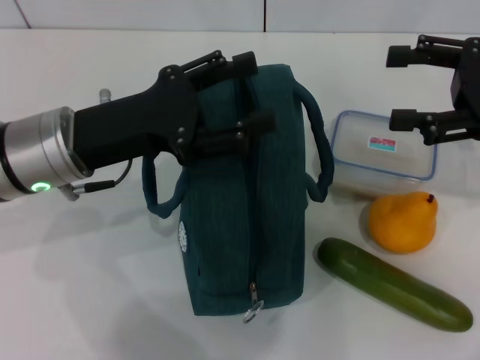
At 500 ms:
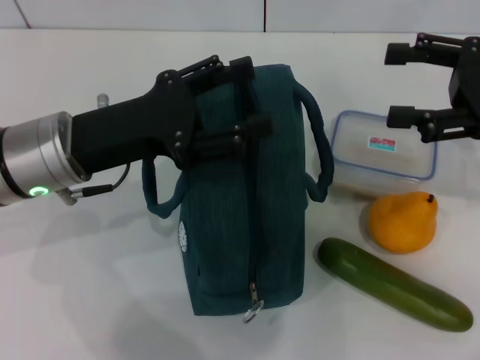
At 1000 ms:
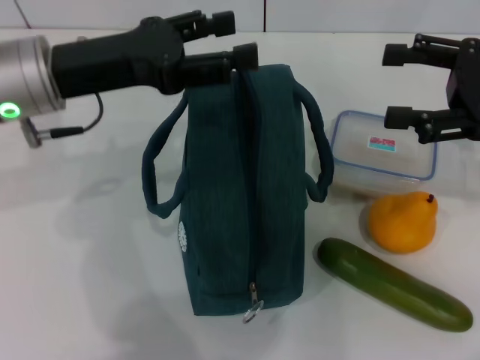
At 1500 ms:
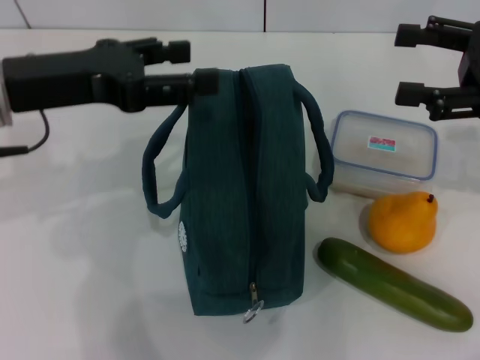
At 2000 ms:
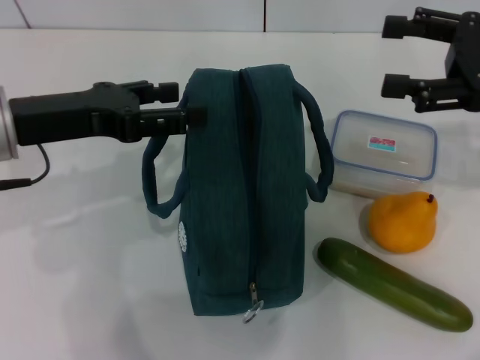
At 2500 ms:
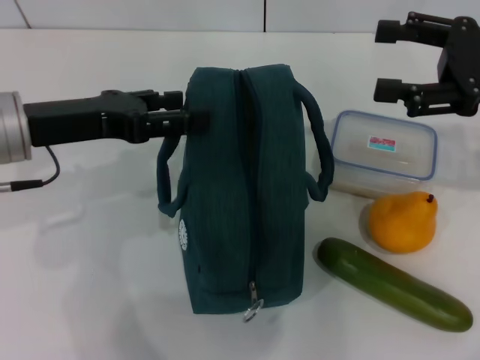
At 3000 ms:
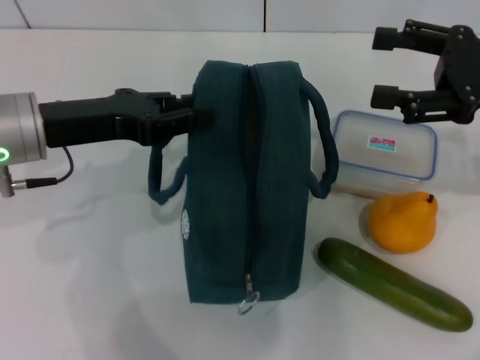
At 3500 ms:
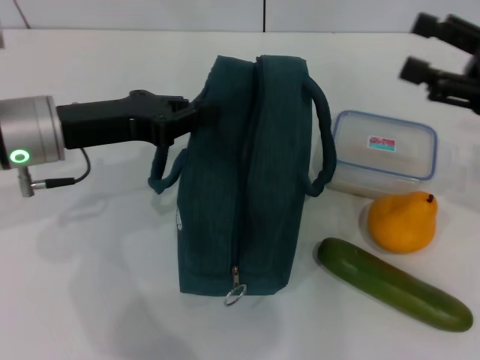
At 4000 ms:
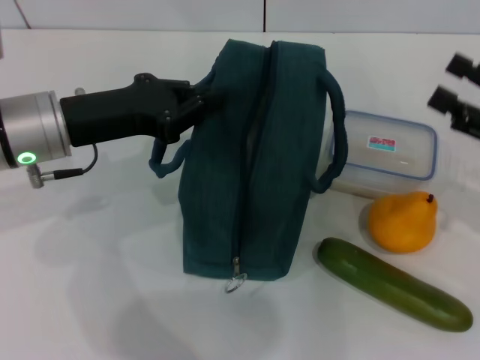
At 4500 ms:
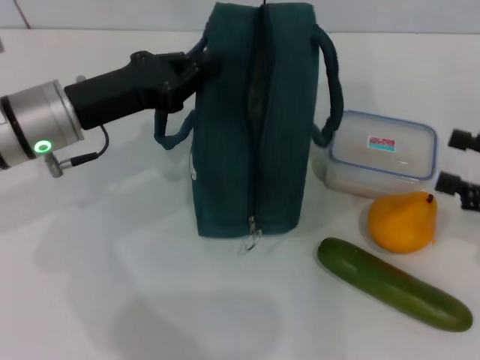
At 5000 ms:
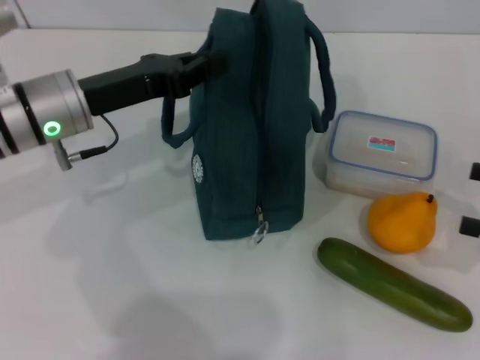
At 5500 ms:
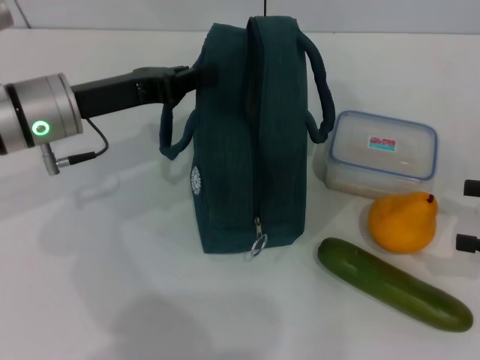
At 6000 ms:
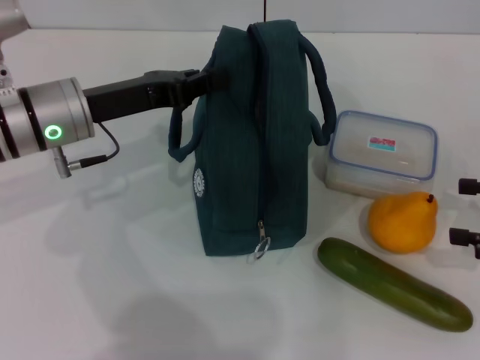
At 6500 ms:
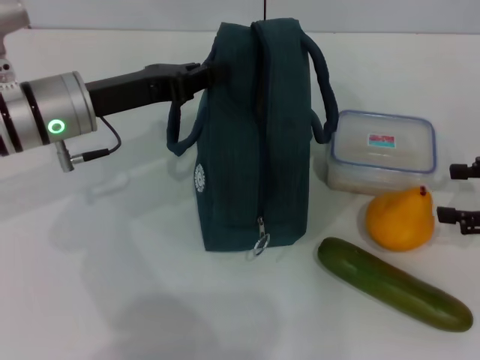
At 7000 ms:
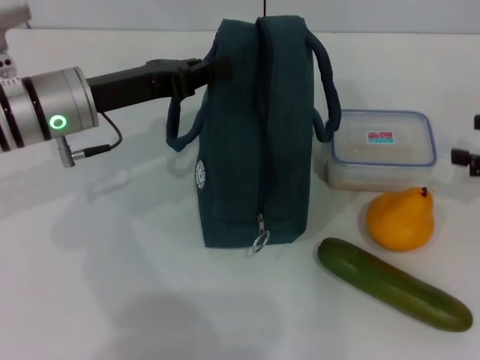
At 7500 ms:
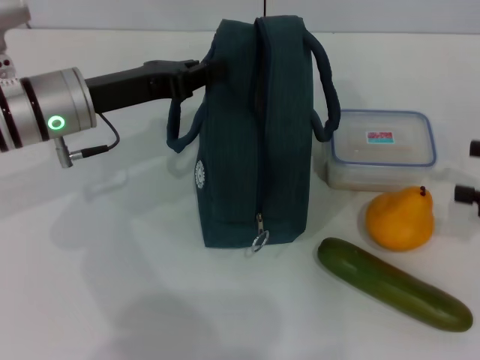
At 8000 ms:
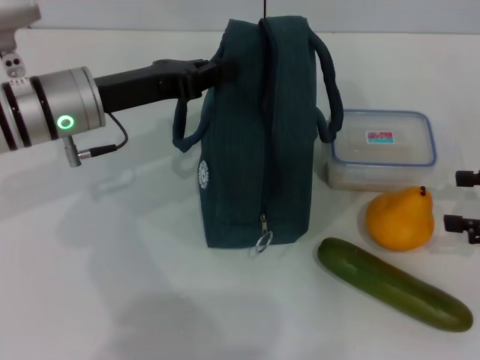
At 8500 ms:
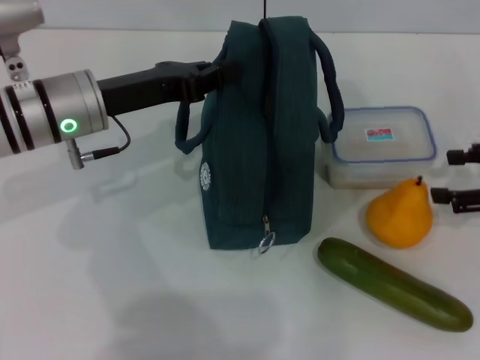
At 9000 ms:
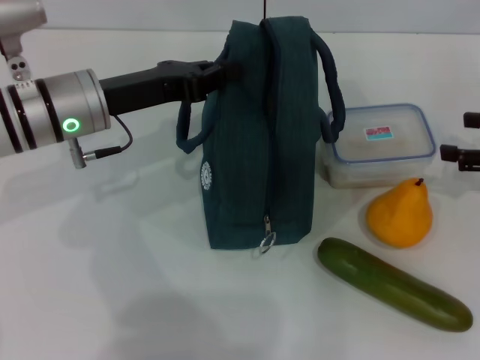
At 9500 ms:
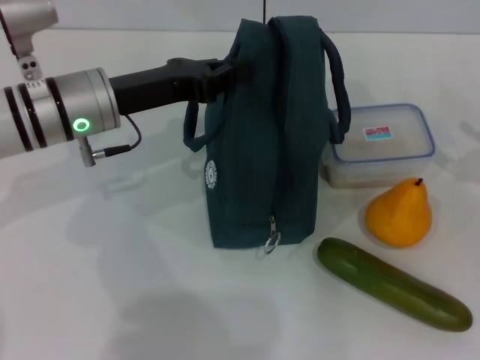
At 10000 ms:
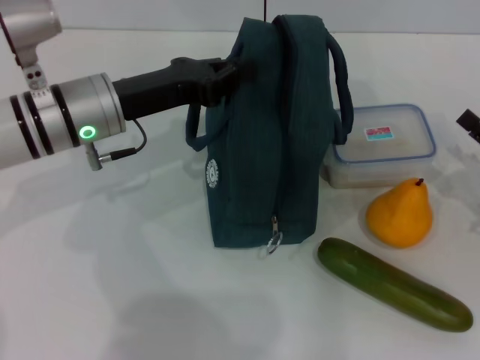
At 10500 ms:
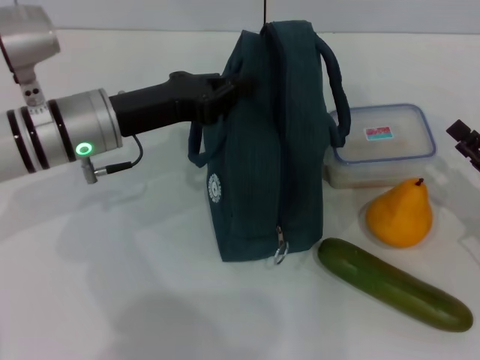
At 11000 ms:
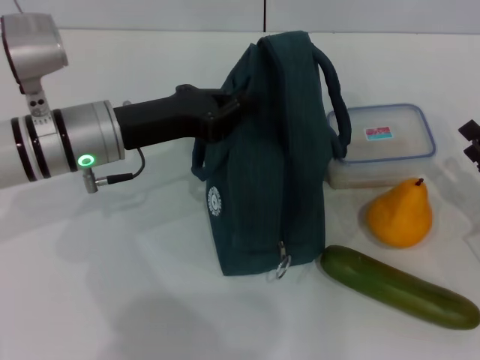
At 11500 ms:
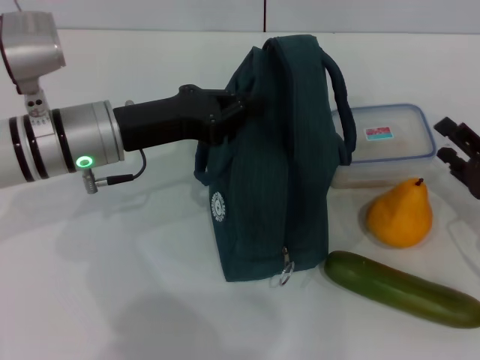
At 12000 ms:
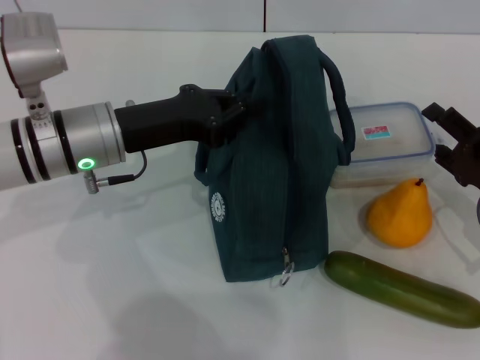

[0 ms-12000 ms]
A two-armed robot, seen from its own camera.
Step, 0 ms to 4000 ms: Hold the lunch bag with your left hand.
0 ms to 2000 ms: The left gripper shifts by about 5 cm.
2000 ms to 4000 ms: The right gripper goes approximately 10 cm downward and backward. The left gripper ends up roughly 5 cm from where it was, and closes up.
4000 ms to 6000 ms: The right gripper is displaced to the right by about 5 cm.
6000 ms to 8000 ms: The grippers move only a little.
8000 ms to 10000 ms: The right gripper shifts approximately 5 cm downward.

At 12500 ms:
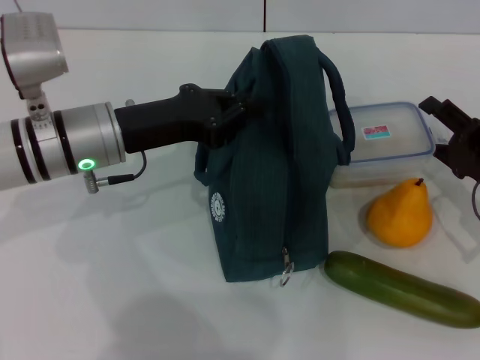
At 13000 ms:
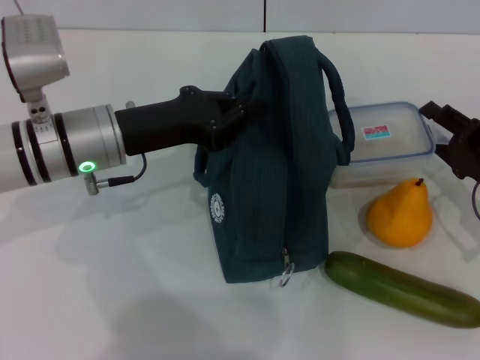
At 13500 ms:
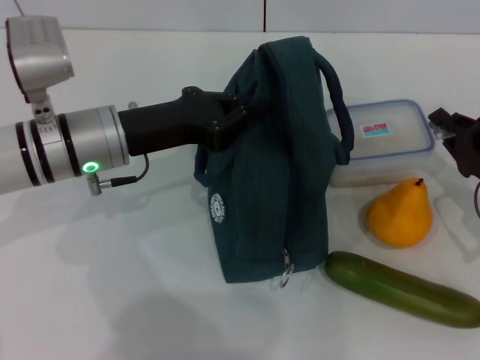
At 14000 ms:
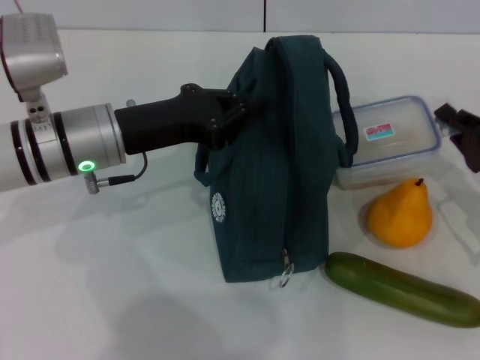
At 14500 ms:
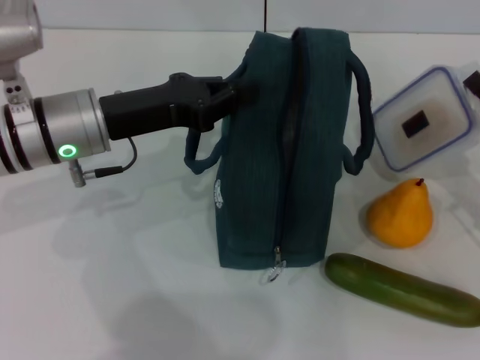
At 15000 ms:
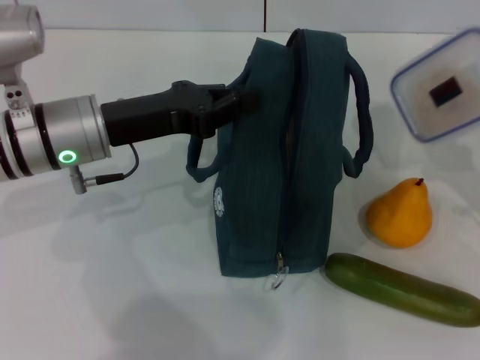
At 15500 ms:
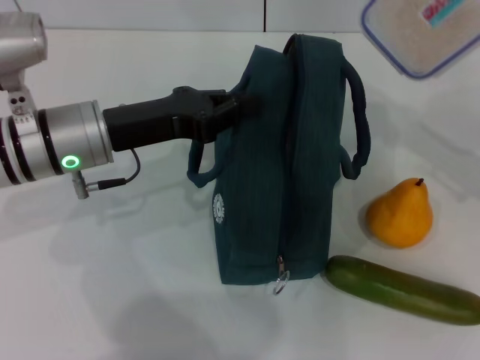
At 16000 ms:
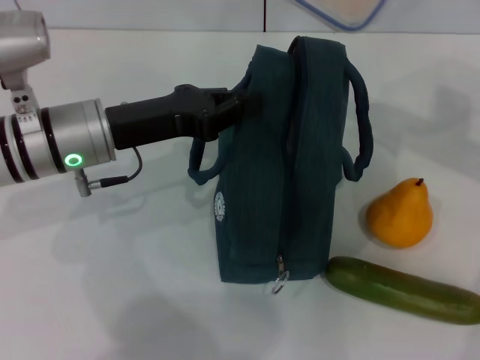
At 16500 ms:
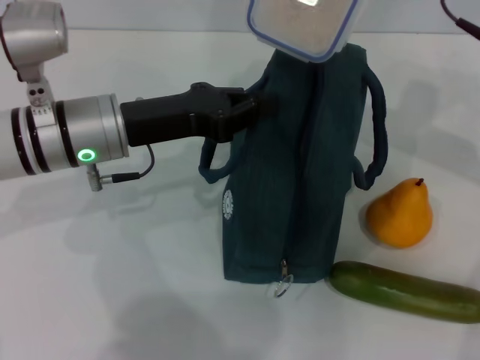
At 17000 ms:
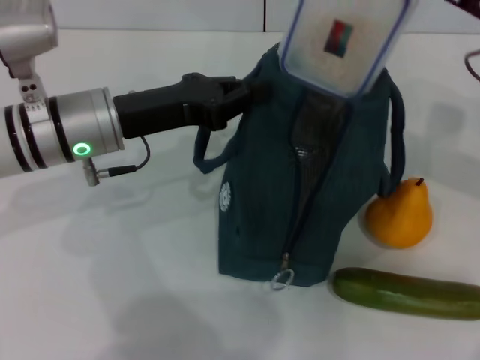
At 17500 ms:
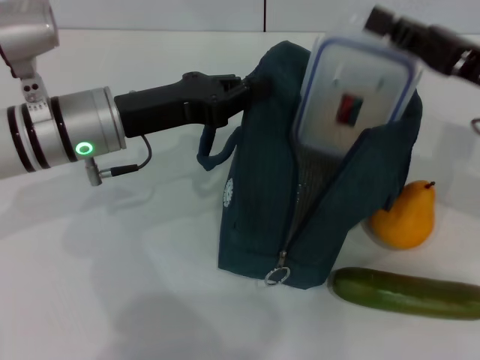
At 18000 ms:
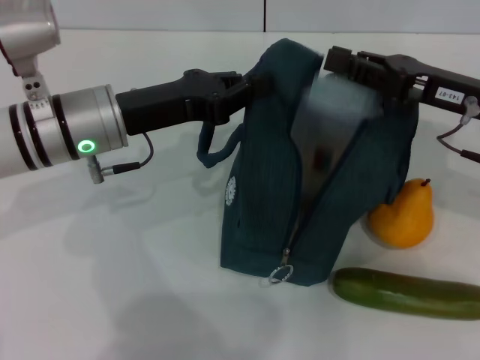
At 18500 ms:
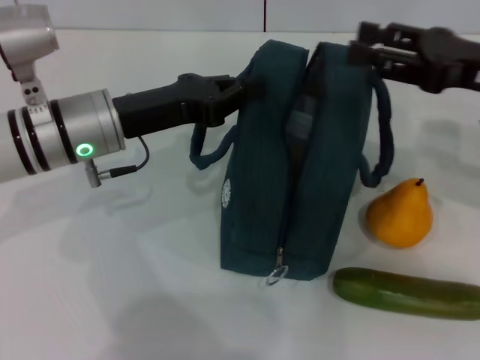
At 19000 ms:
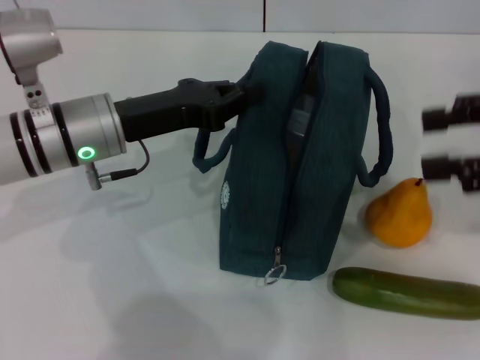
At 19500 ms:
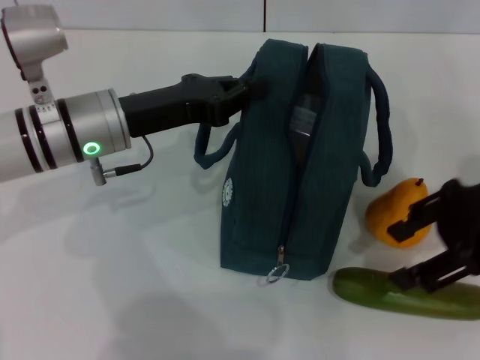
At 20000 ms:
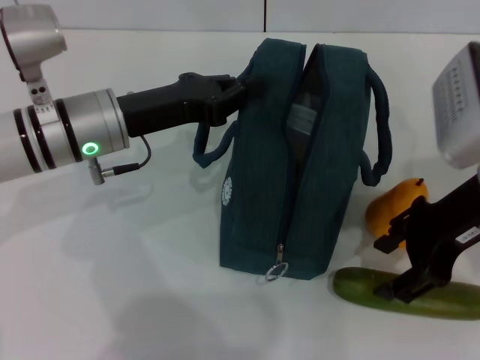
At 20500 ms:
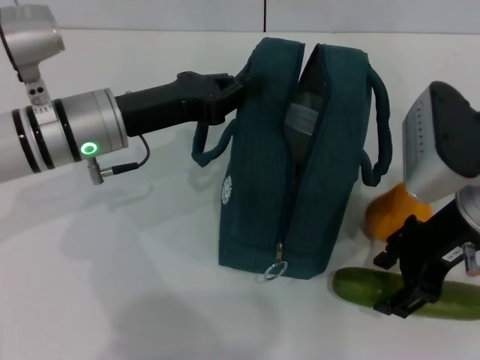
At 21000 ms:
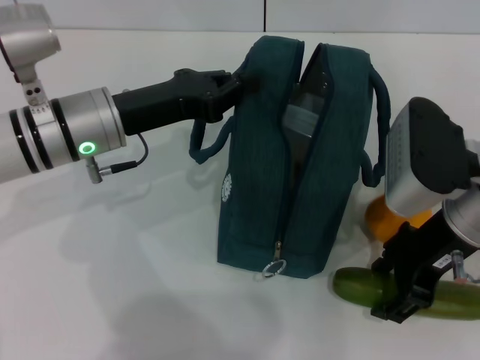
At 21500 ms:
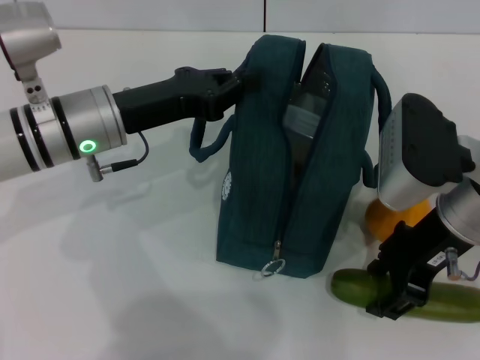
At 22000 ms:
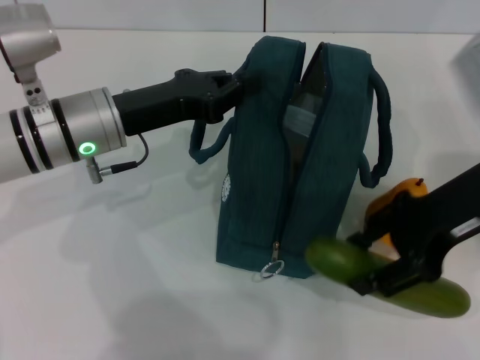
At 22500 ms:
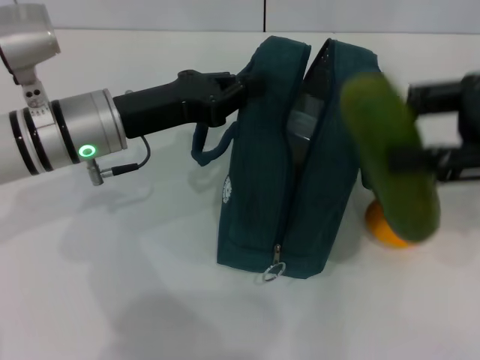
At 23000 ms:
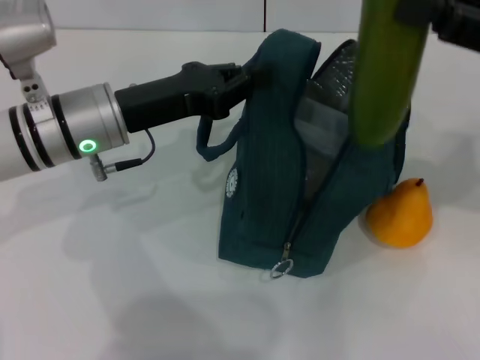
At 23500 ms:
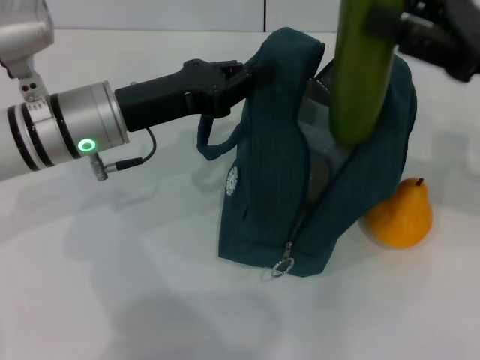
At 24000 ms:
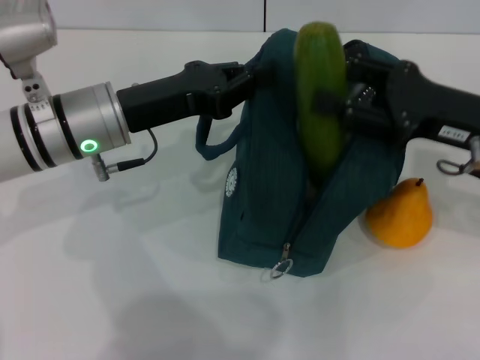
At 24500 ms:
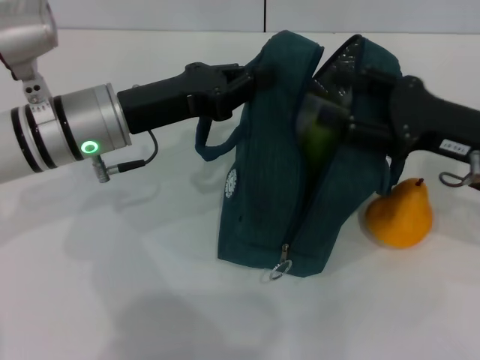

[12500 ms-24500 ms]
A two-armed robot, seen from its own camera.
Step, 14000 ms to 18500 ms: Place the lunch box into the lunch bag with your right hand.
Step, 19000 ms to 21000 ms: Pick up the cucumber with your right hand.
12500 ms to 14500 ms: The right gripper closes.
14500 ms to 16500 ms: The right gripper is displaced upward, forward and to the left by approximately 20 cm.
16500 ms to 18500 ms: The right gripper is displaced backward by approximately 5 cm.
18500 ms to 20500 ms: The right gripper goes roughly 10 cm to the left.
20500 ms to 22500 ms: The right gripper goes about 10 cm to the right and upward.
22500 ms to 24500 ms: The right gripper travels downward by about 10 cm.

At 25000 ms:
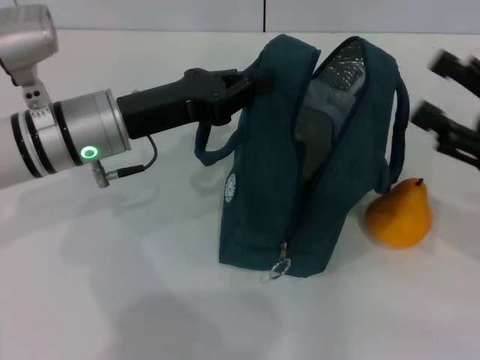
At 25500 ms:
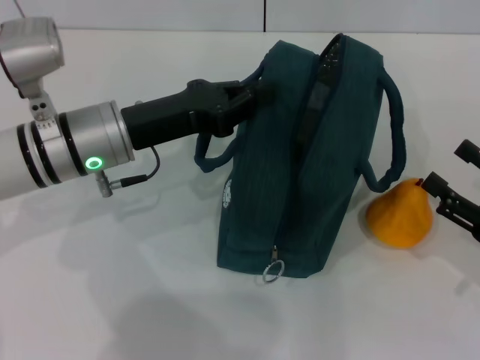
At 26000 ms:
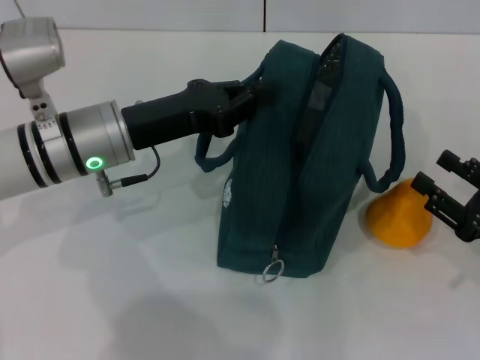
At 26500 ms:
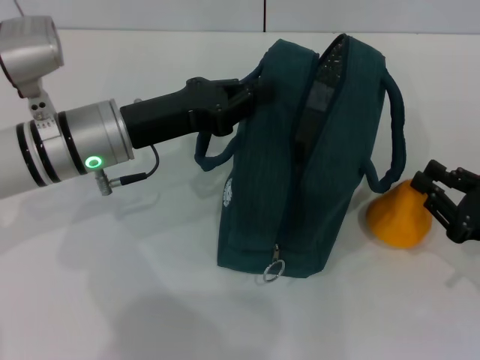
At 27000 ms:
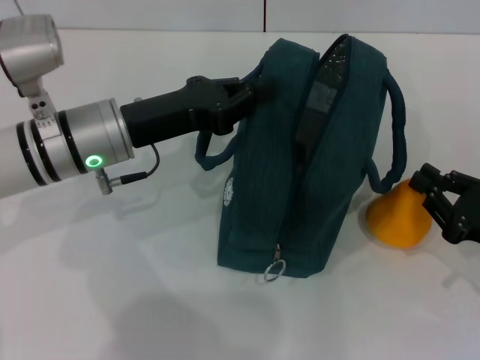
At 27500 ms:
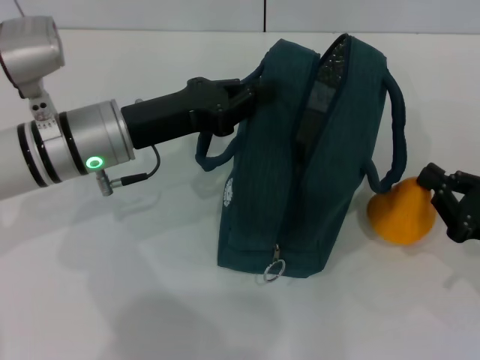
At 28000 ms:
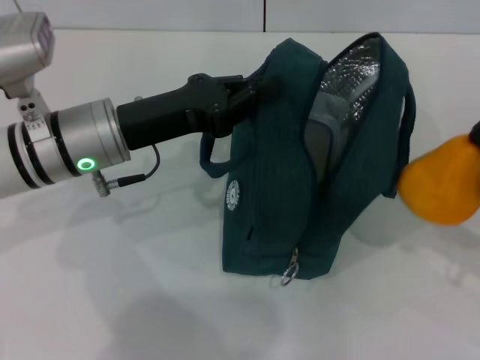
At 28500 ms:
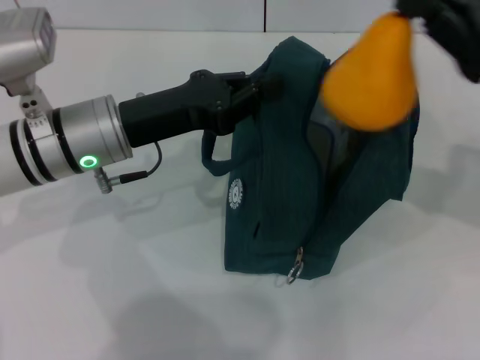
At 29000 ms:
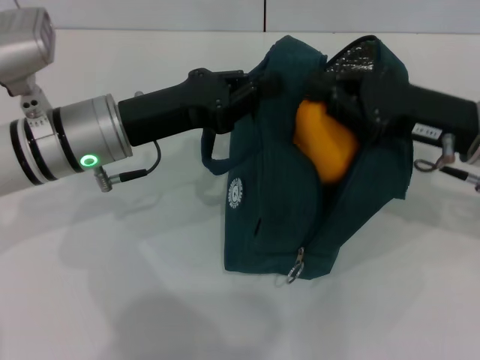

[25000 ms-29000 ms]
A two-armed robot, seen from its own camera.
Step, 25000 ms to 27000 ms: Grab the pear with your right hand.
25000 ms to 27000 ms: The right gripper goes some 10 cm downward, and closes up.
27000 ms to 29000 ms: The right gripper shifts about 15 cm upward, forward and to the left.
